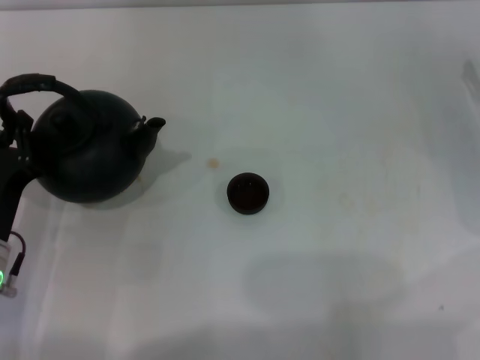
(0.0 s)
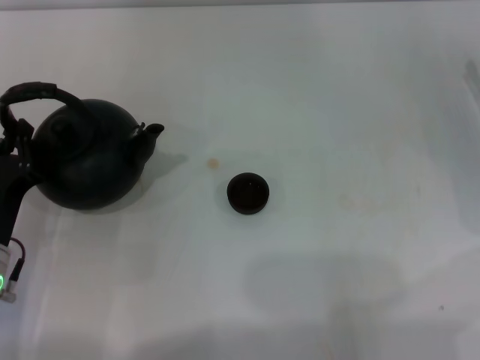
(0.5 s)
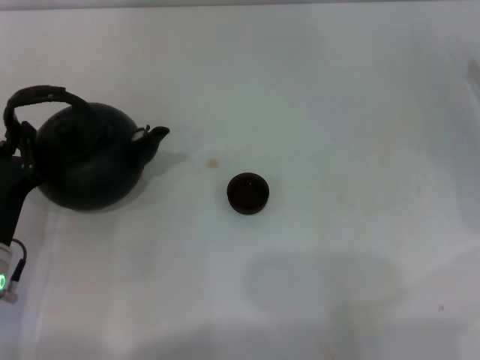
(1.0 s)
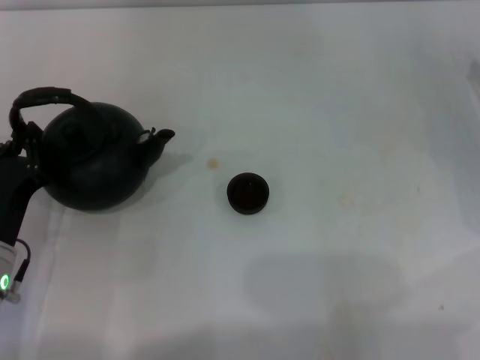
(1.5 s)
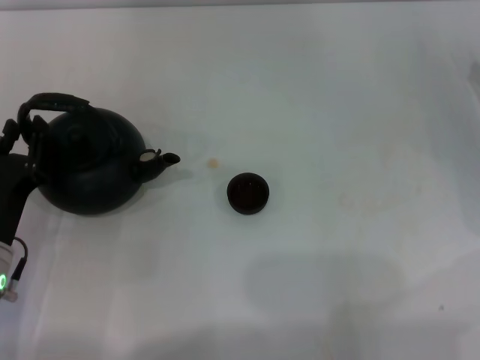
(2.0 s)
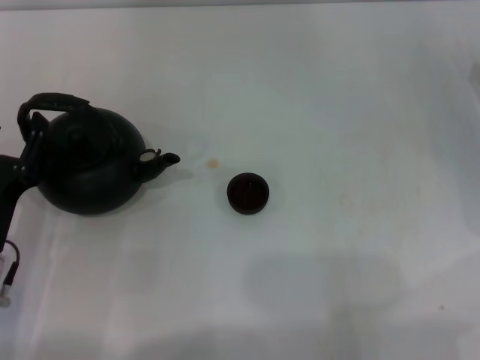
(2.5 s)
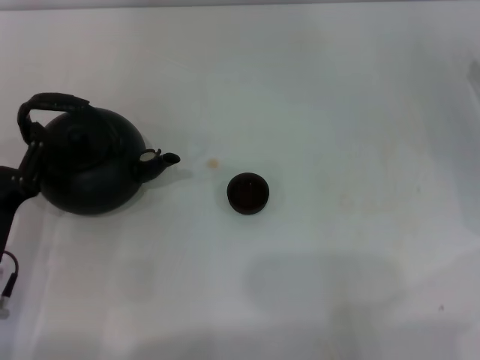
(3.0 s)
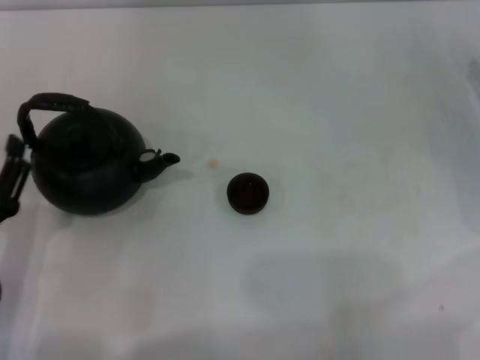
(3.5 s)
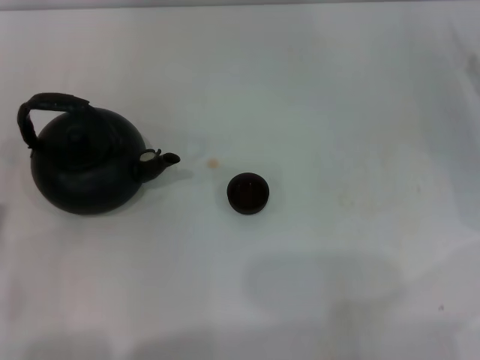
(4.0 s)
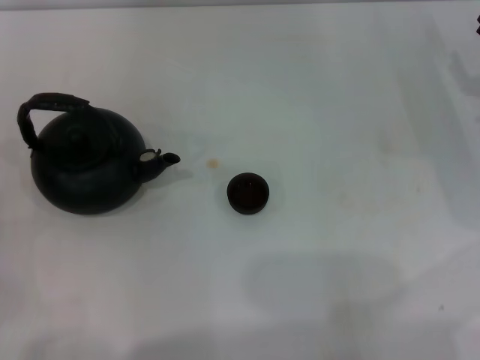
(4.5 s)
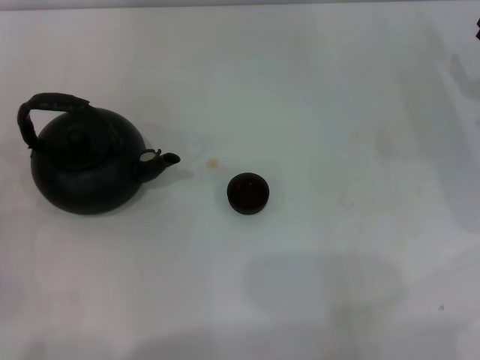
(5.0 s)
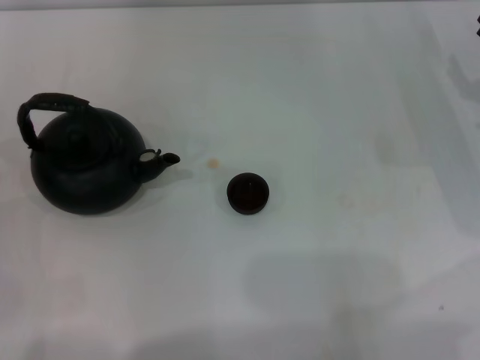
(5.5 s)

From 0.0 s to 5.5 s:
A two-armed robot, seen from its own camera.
Task of the whole recording: Grasp the handle of the teapot with one hand and pour tea into the teacup.
Step, from 0.0 s to 2.5 s: Put down the teapot with the left gripper.
From 0.0 s to 2.0 s: Both grippers stay put.
From 2.0 s to 3.5 s: The left gripper ends up roughly 5 cm from where it was, and opens its fingers.
From 3.5 s to 5.5 s: The left gripper travels to the left by roughly 5 cm.

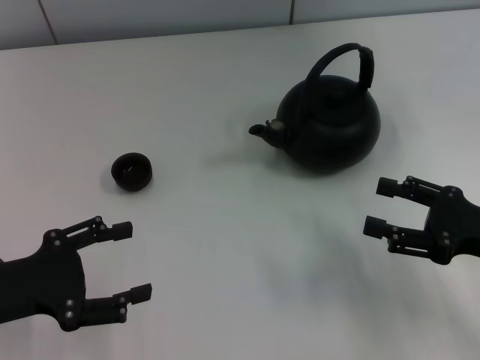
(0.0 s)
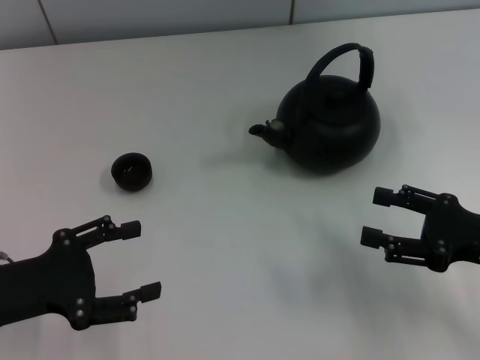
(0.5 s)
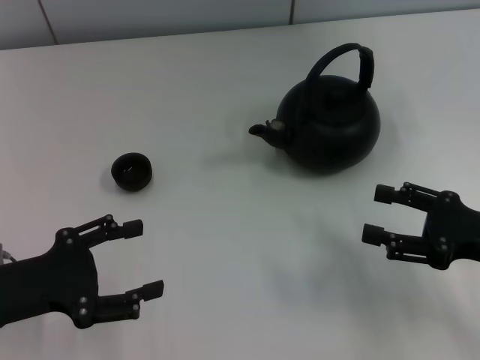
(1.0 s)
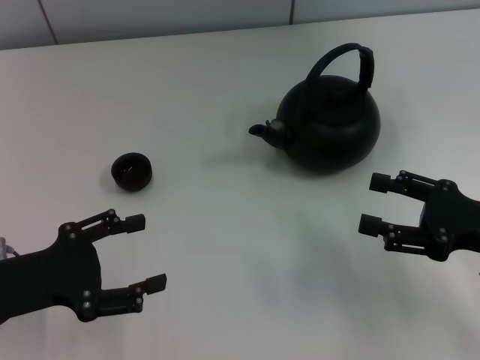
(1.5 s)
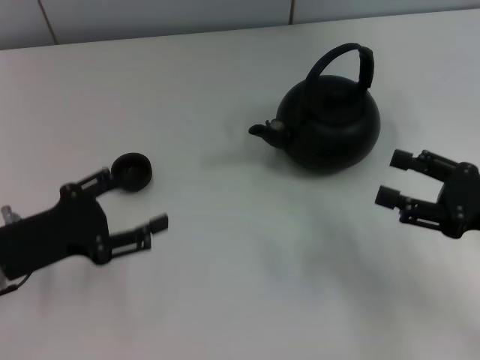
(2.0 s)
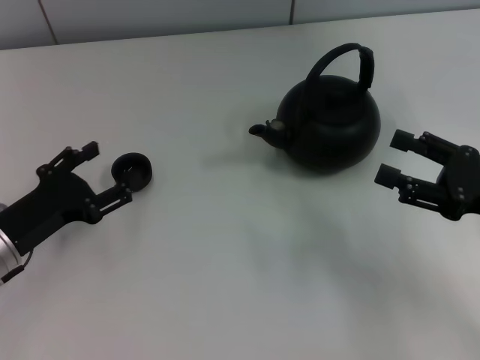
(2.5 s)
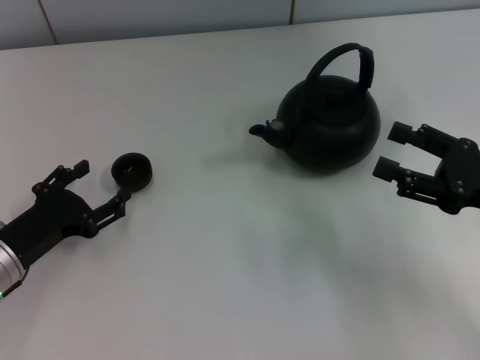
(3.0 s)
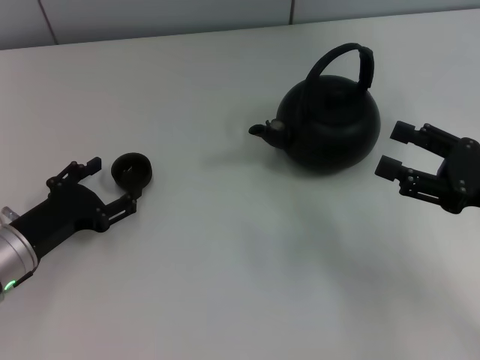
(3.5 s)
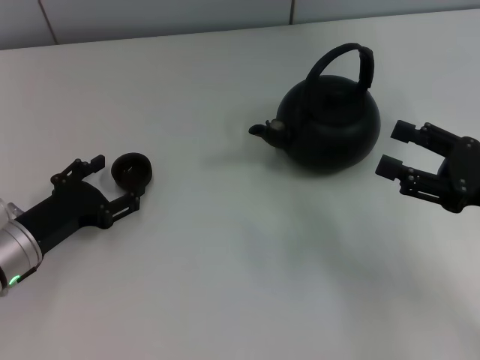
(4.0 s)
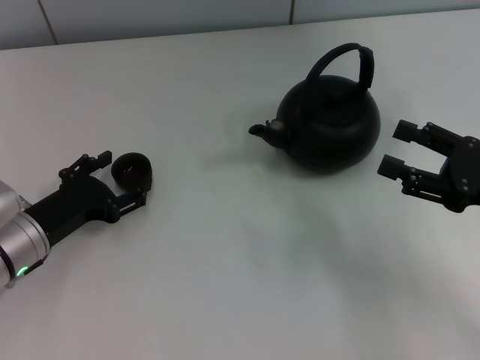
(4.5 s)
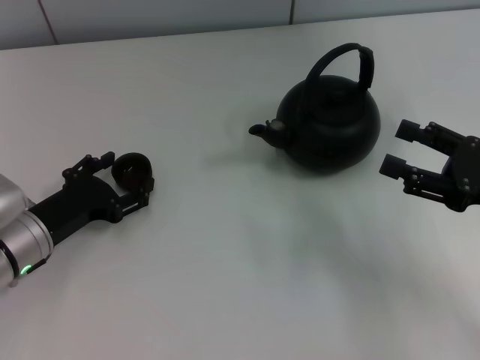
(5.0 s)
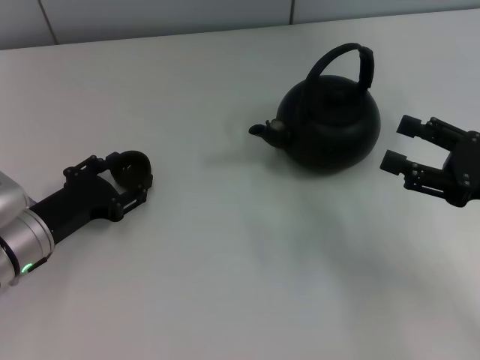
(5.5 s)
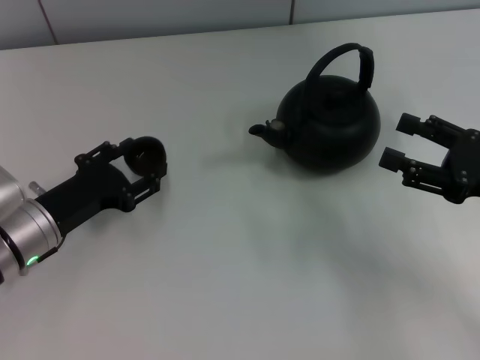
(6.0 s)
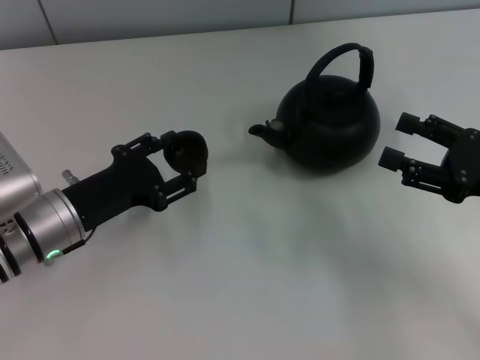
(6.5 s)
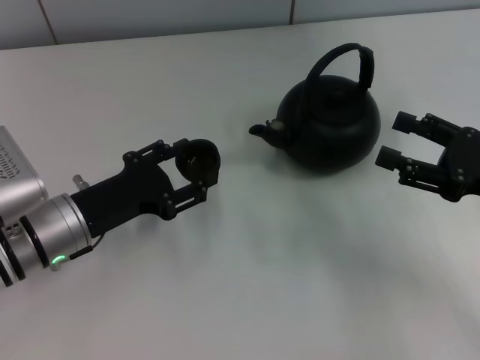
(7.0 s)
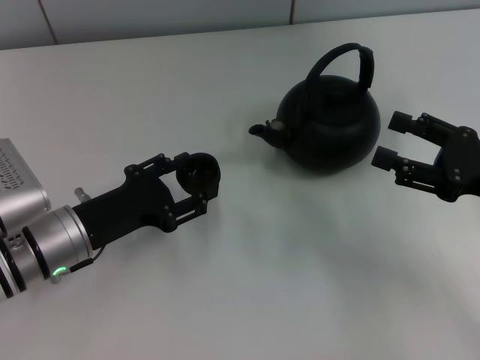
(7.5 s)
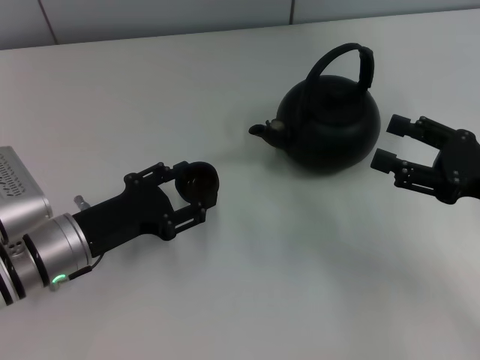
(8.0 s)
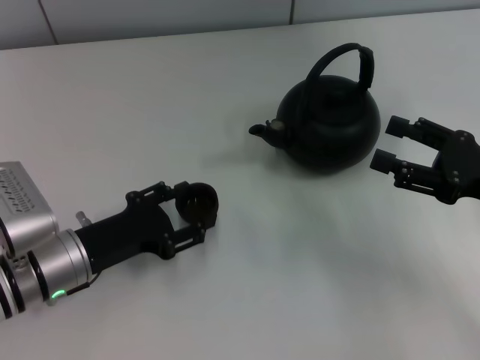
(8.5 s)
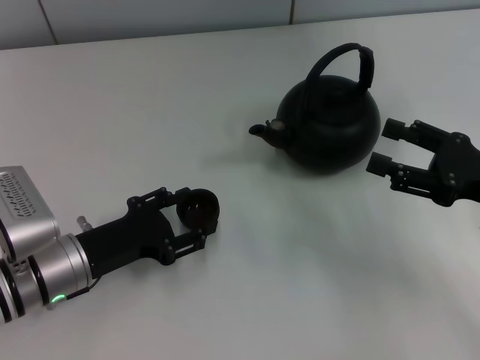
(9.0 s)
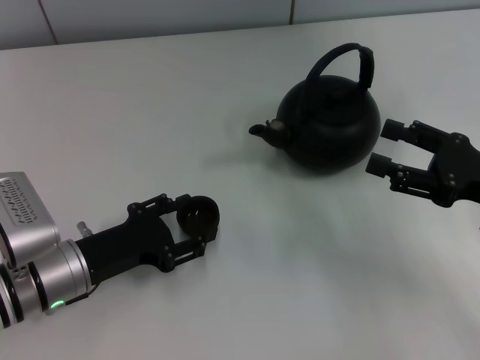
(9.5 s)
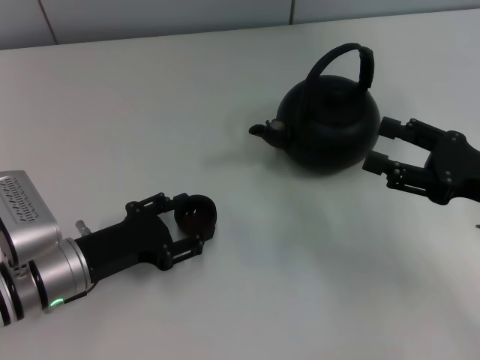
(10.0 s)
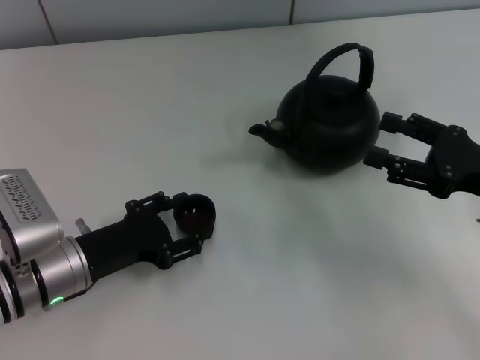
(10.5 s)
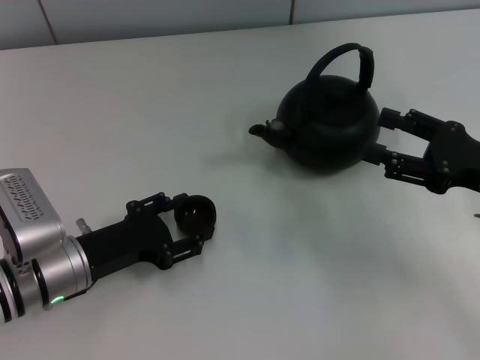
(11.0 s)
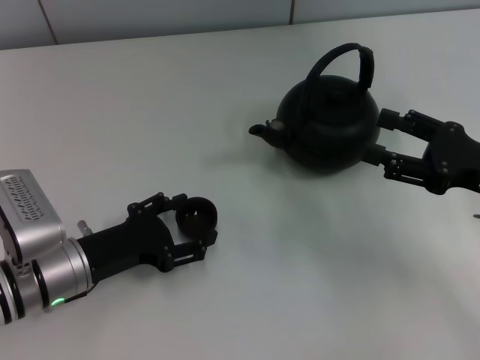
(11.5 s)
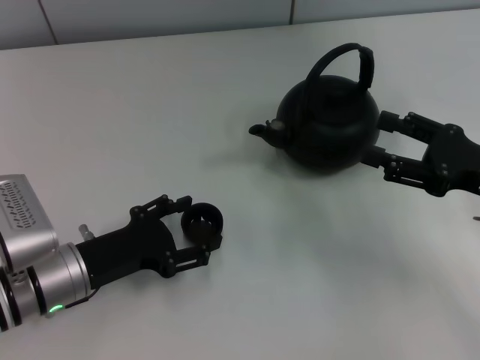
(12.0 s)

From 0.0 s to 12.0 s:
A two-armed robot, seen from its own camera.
Task of the whole recording: Grasp the handle of the teapot with one hand and pour tea into the teacup.
Step, from 0.0 s to 5.5 s: Pick up the teacup with the left gripper.
From 0.0 s to 2.0 s: The grippers make only small movements.
From 2.0 s to 4.0 s: The left gripper shifts some 5 cm downward.
From 4.0 s to 6.0 s: The left gripper closes up.
From 6.0 s to 10.0 s: The grippers stay close to where they were, moving slightly.
From 10.0 s to 12.0 s: The left gripper opens up.

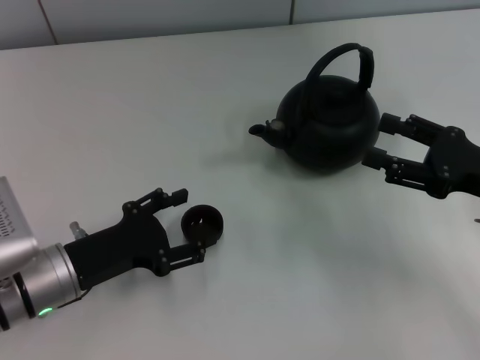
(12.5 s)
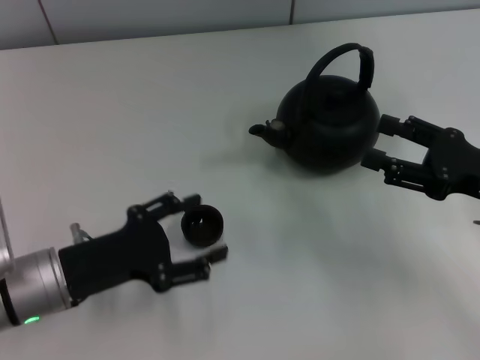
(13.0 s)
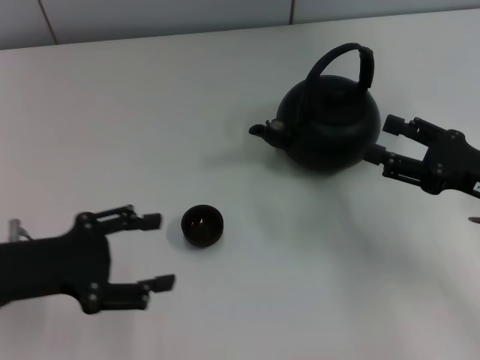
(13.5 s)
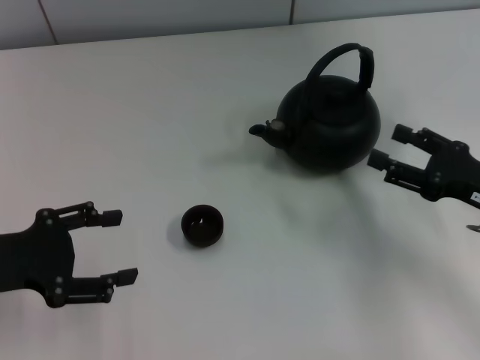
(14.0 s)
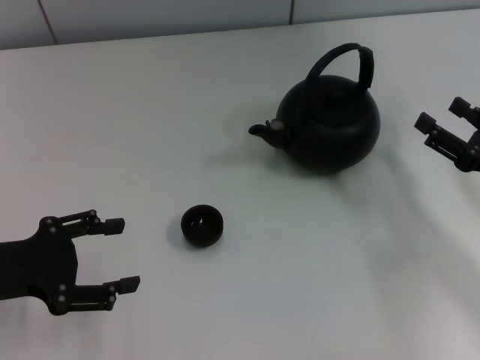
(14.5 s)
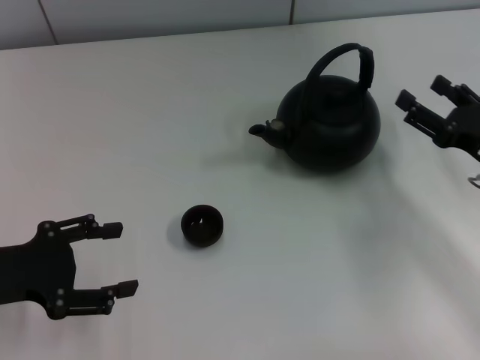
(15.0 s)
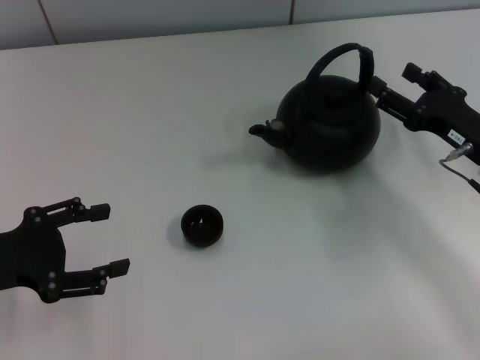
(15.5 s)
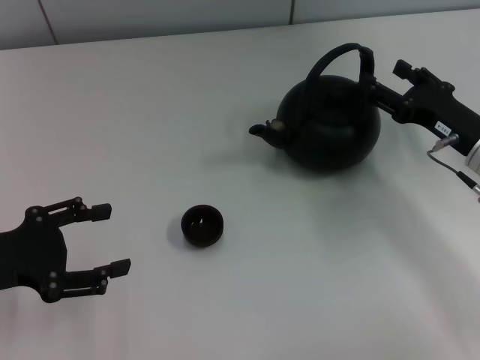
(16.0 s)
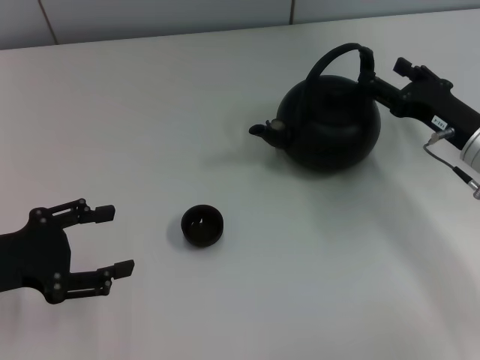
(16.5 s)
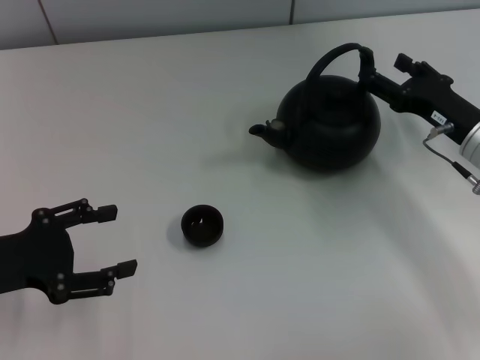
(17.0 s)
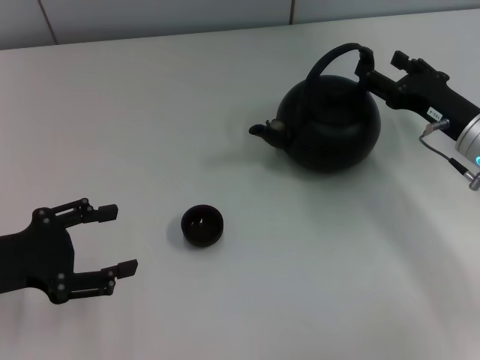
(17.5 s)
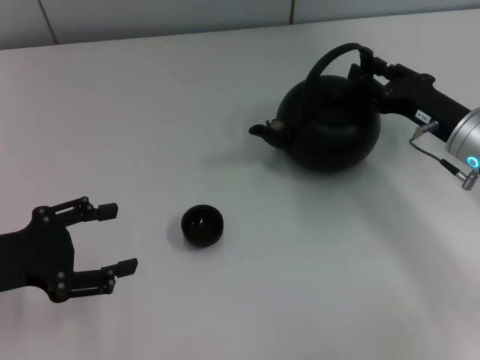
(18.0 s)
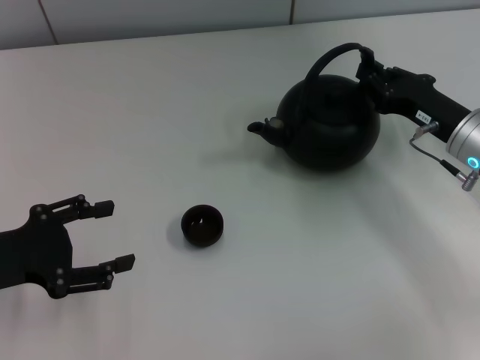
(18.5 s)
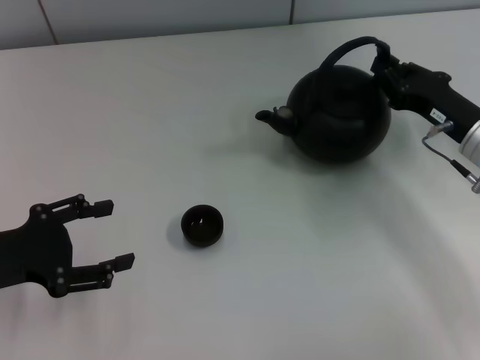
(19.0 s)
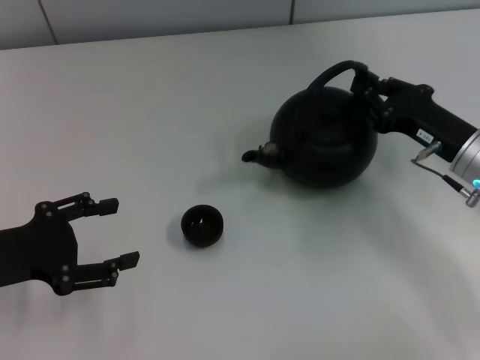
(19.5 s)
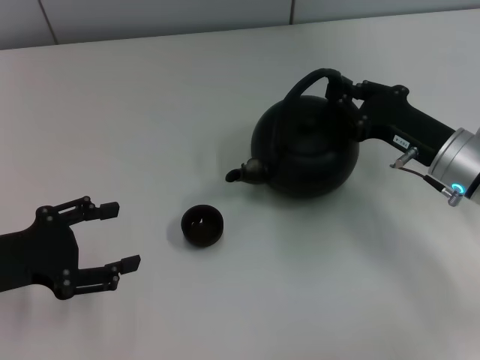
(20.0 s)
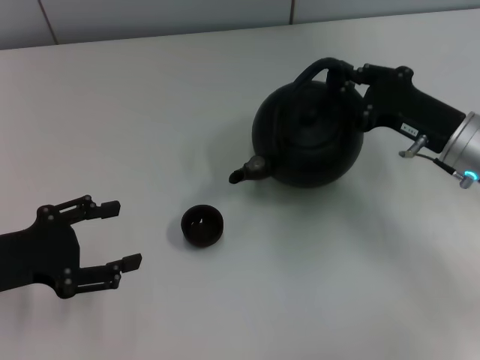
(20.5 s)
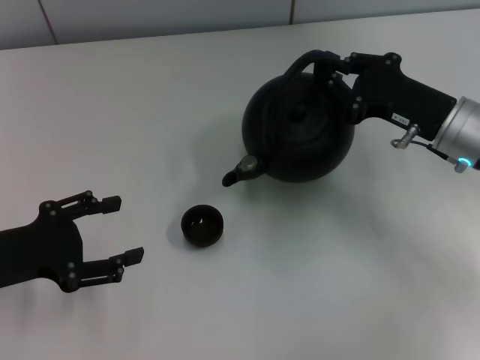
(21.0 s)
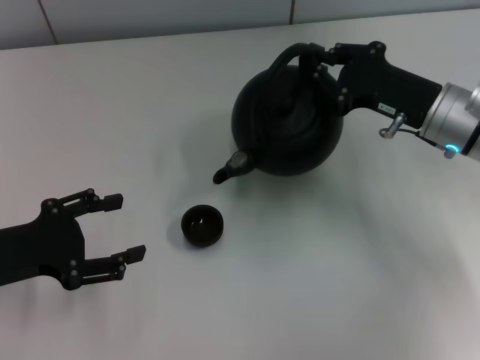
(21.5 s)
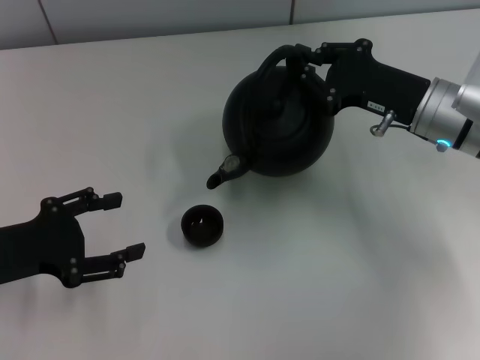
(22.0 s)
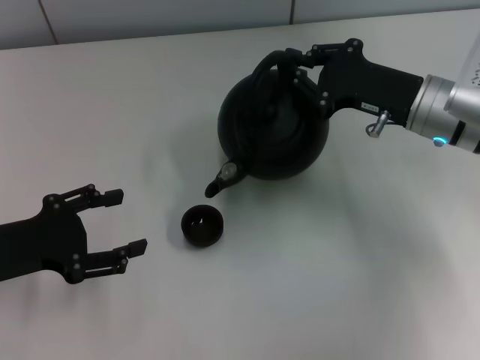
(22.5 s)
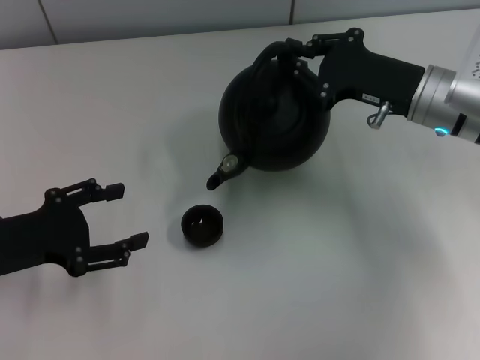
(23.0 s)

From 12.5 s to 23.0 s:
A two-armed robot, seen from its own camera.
Task of the whole recording: Grasp the handle of the teapot with one hand and pour tea into the teacup.
Step, from 13.0 s to 20.0 s: Pick up the teapot with the right gripper.
From 12.5 s to 14.5 s: The left gripper travels to the left and upward by roughly 10 cm; the right gripper ends up approximately 5 cm from where it was.
From 14.5 s to 16.5 s: The right gripper heads forward, covering about 10 cm.
From 16.5 s to 19.0 s: The right gripper closes its fingers.
From 21.0 s to 23.0 s: The grippers make only small movements.
